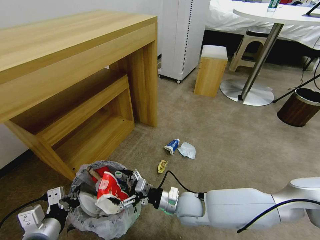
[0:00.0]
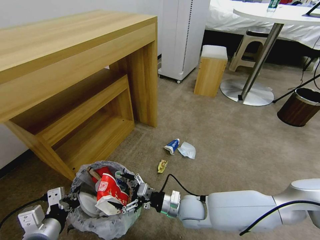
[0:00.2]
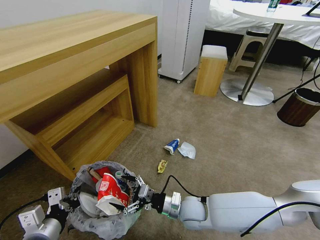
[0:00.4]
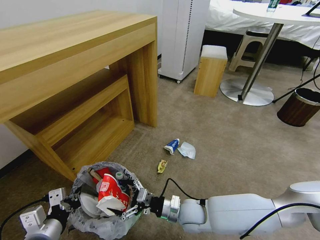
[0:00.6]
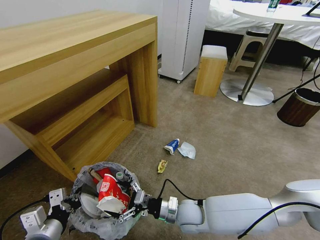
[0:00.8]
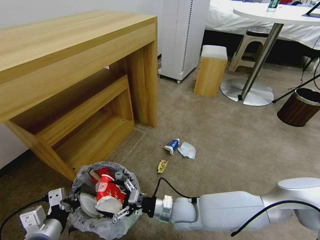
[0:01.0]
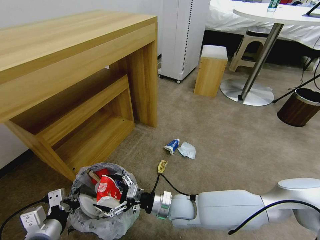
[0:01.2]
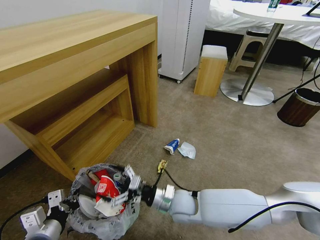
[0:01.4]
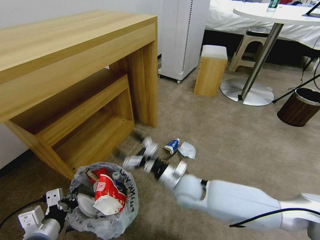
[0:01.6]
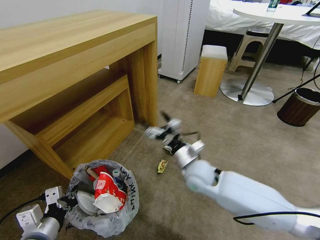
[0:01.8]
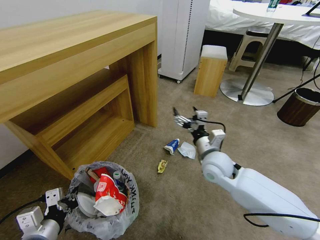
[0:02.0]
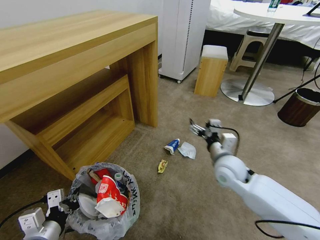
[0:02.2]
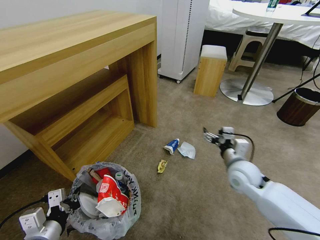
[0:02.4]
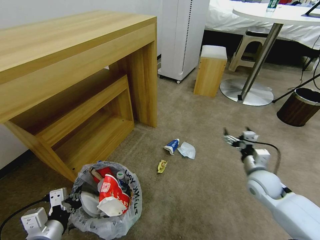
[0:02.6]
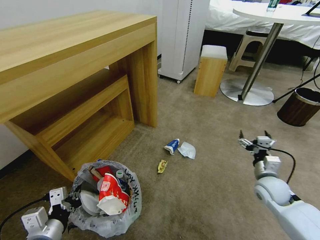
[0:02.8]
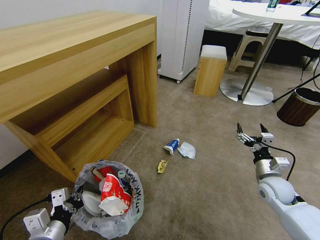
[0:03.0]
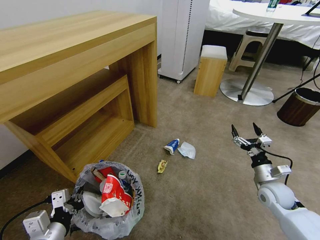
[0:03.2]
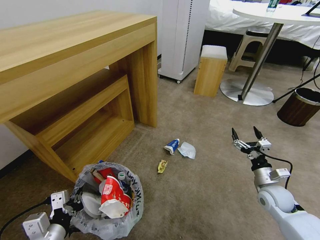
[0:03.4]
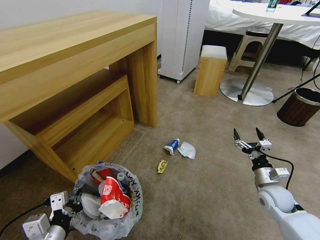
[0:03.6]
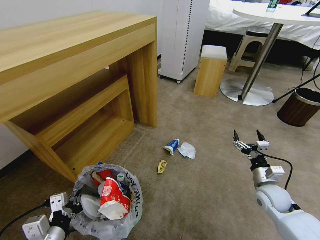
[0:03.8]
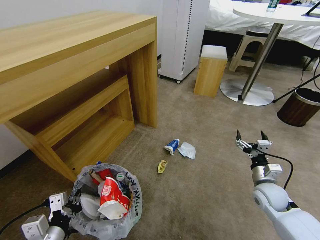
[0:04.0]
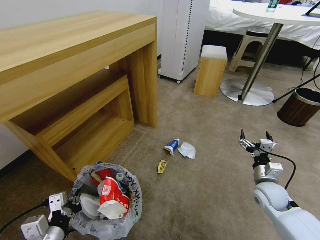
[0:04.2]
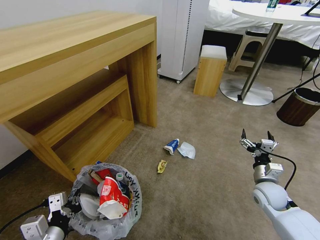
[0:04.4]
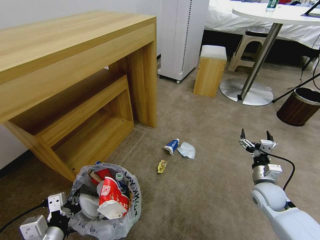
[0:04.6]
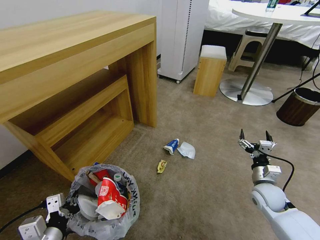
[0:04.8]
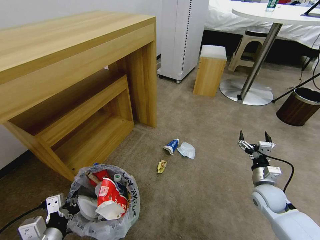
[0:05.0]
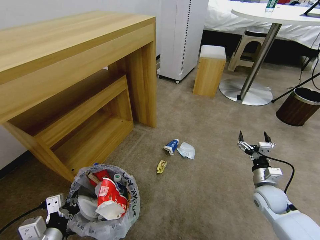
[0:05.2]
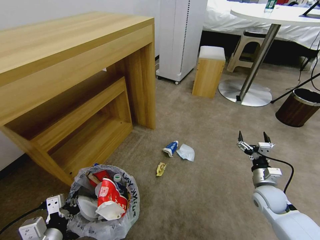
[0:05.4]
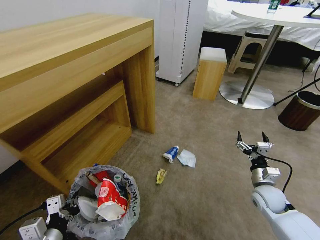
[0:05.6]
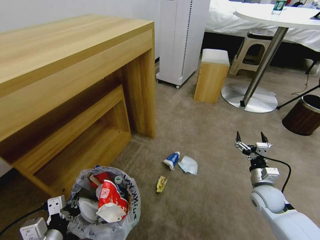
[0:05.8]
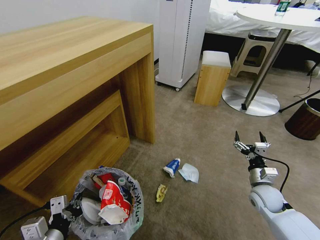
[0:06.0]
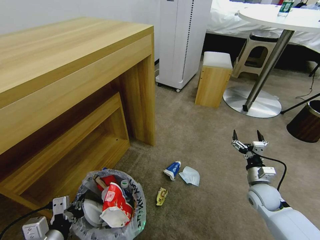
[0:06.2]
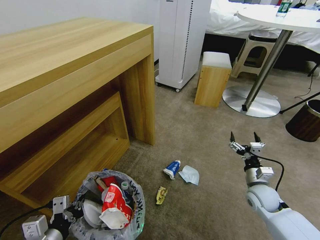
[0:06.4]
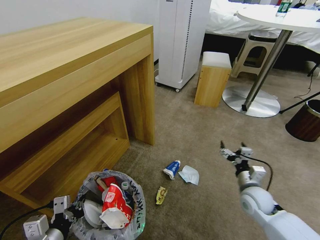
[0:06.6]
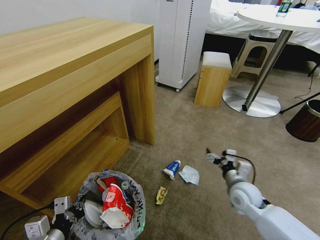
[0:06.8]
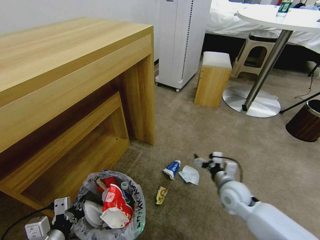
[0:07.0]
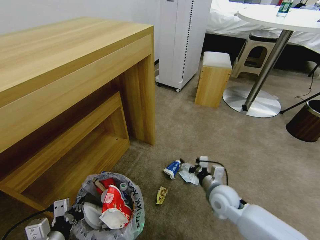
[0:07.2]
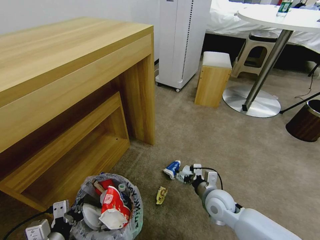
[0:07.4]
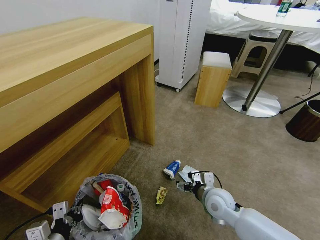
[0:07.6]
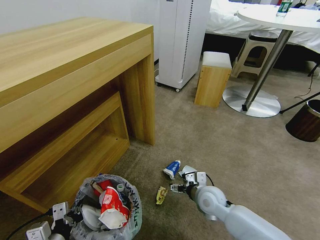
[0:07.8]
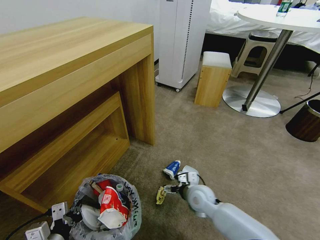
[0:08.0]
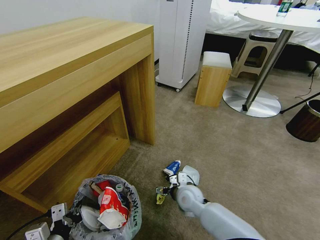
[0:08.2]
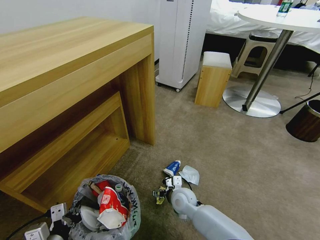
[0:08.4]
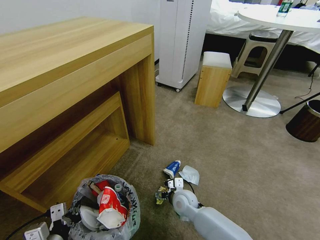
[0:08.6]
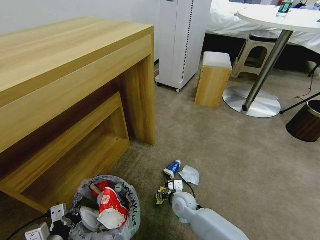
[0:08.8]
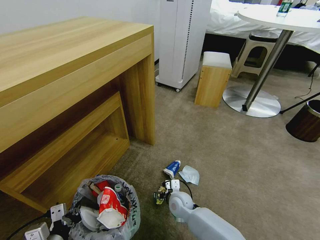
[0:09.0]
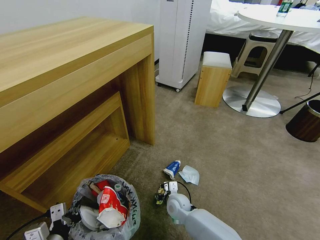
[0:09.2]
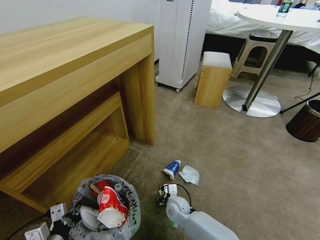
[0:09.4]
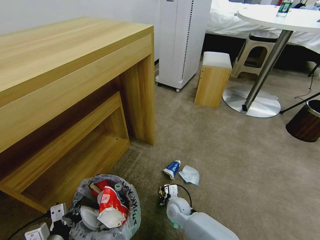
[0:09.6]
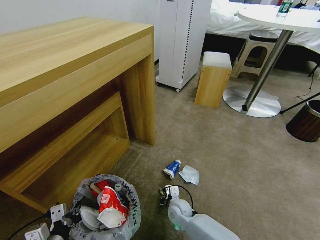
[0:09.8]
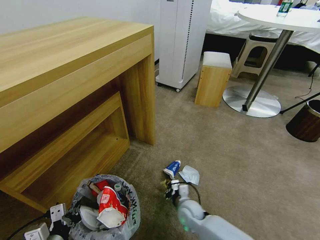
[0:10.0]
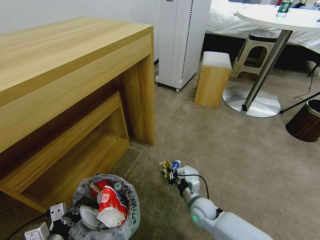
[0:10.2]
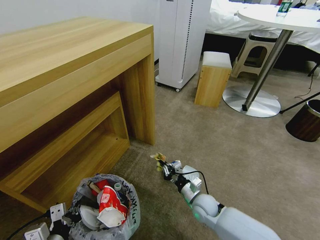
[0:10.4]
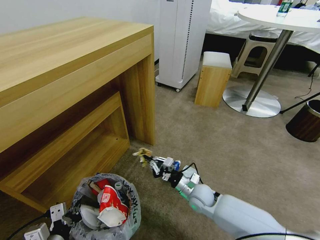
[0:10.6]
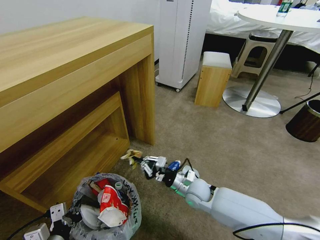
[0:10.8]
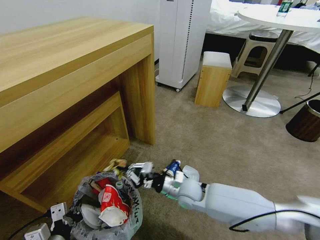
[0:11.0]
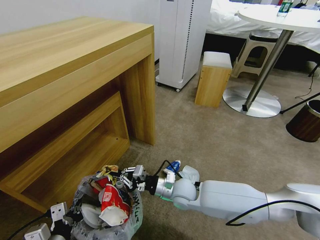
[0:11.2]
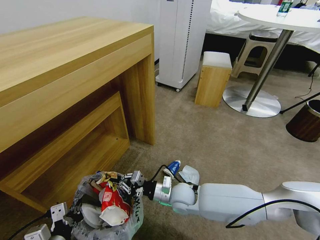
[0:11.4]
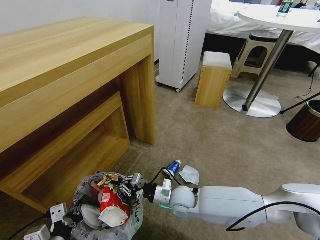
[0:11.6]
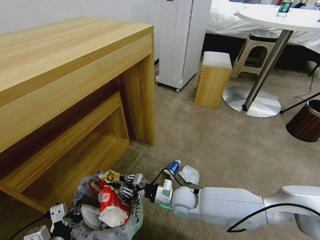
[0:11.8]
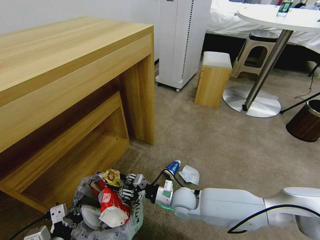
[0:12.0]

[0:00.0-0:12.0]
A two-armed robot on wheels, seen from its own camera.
Task of the whole recording: Pick up the trash bin and place the garbage on the floor into it.
0:00.0 to 0:01.6: The right gripper ends up roughly 5 cm from where it was.
0:01.6 to 0:03.0: The right gripper moves to the right, approximately 30 cm.
0:03.0 to 0:04.4: The grippers move only a little.
0:06.0 to 0:07.6: The right gripper travels to the left by some 20 cm.
0:07.6 to 0:09.0: The right gripper shifts roughly 15 cm to the left and downward.
0:09.0 to 0:10.4: The right gripper goes roughly 10 cm to the right, and closes.
0:10.4 to 0:12.0: The right gripper heads to the left, covering roughly 10 cm, and opens.

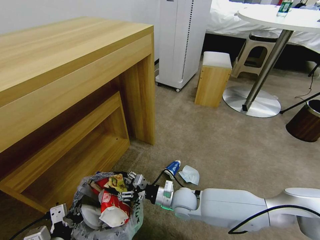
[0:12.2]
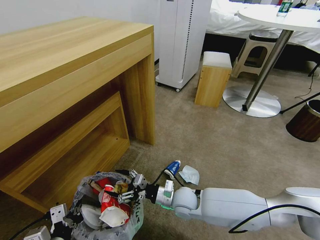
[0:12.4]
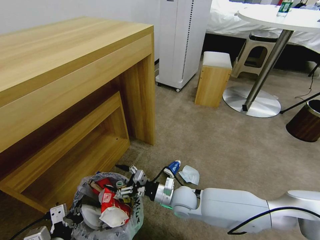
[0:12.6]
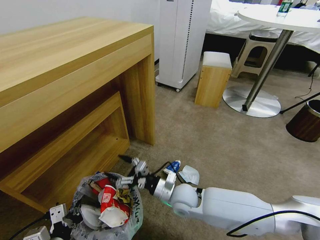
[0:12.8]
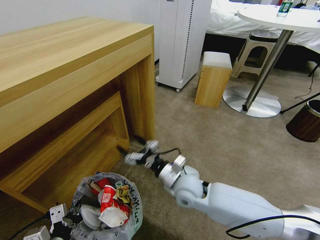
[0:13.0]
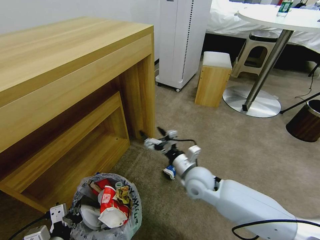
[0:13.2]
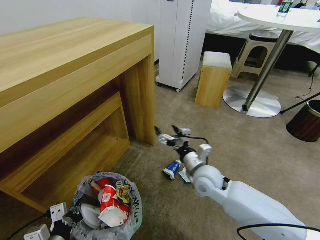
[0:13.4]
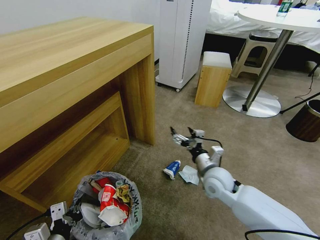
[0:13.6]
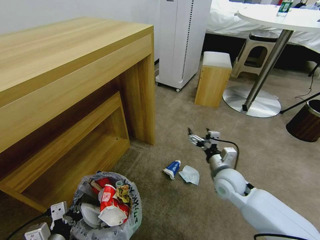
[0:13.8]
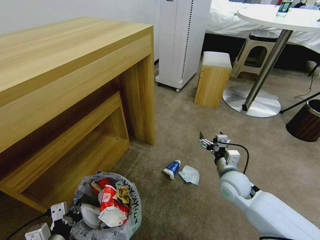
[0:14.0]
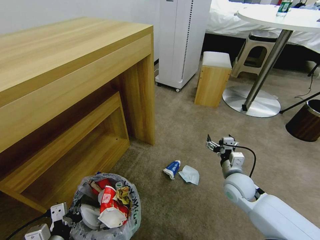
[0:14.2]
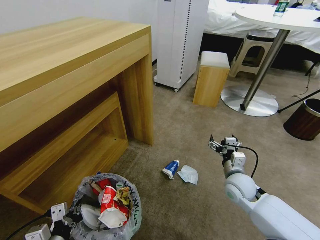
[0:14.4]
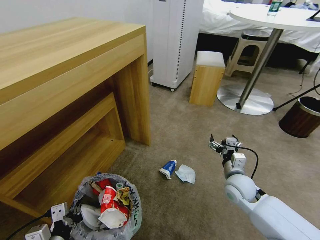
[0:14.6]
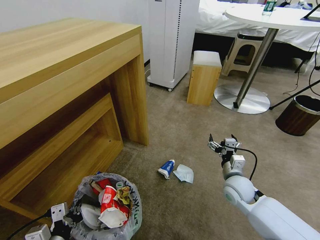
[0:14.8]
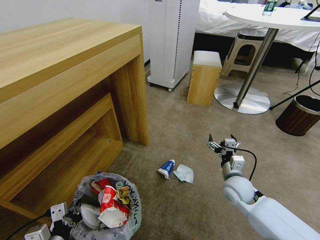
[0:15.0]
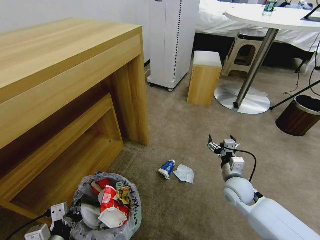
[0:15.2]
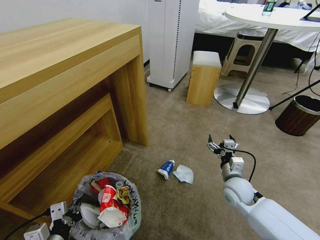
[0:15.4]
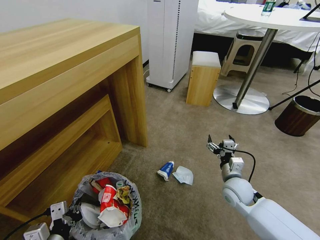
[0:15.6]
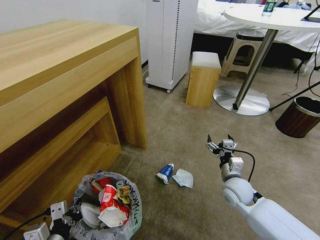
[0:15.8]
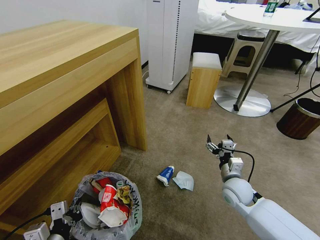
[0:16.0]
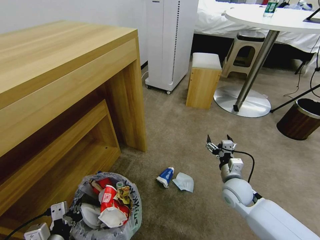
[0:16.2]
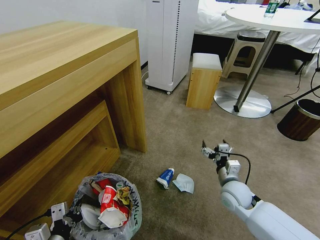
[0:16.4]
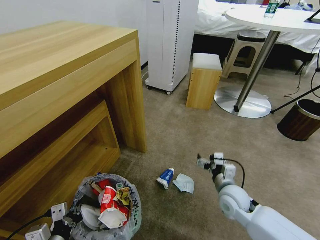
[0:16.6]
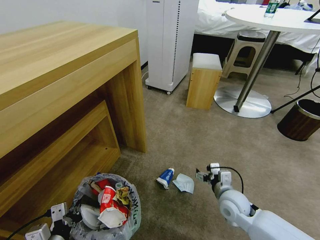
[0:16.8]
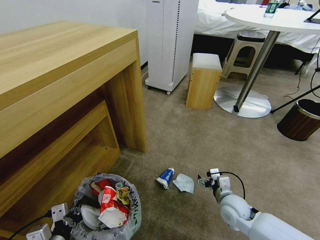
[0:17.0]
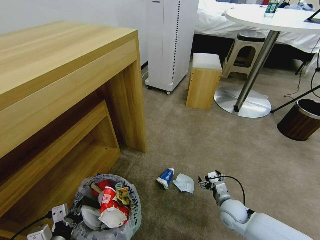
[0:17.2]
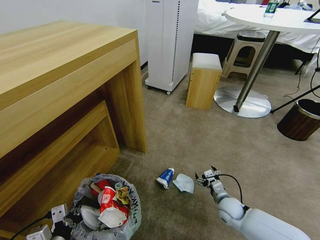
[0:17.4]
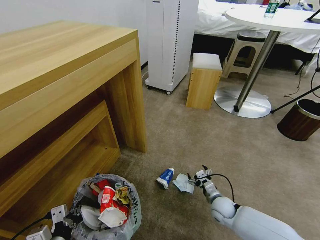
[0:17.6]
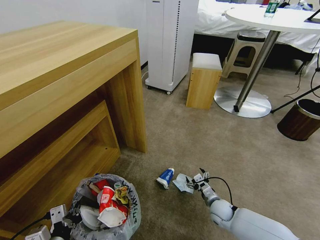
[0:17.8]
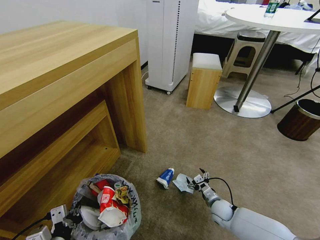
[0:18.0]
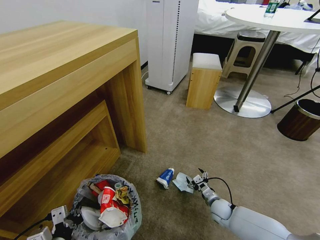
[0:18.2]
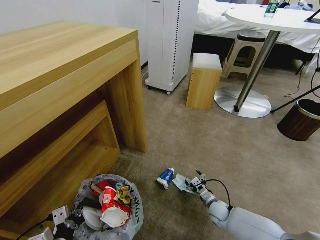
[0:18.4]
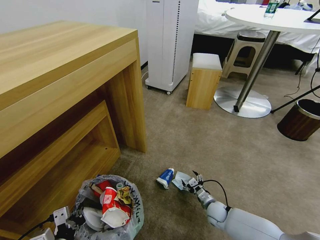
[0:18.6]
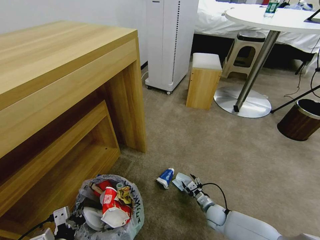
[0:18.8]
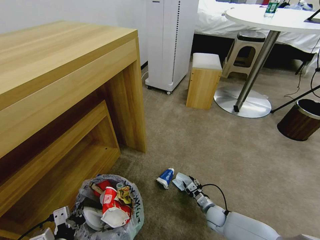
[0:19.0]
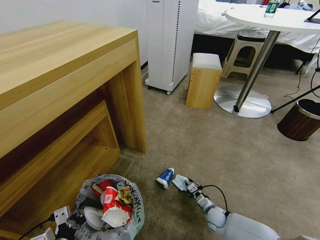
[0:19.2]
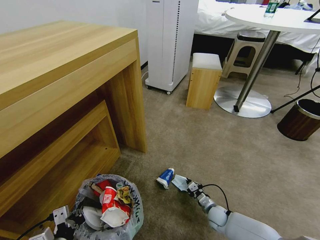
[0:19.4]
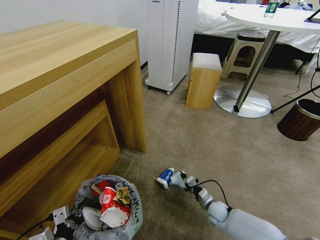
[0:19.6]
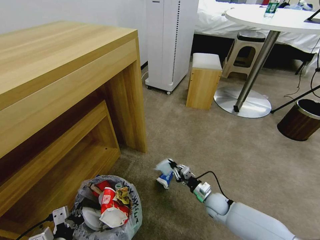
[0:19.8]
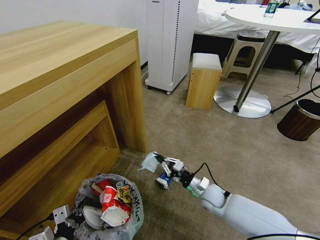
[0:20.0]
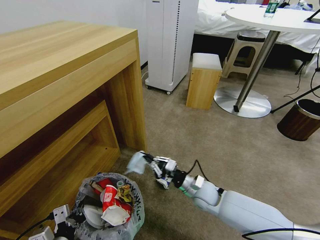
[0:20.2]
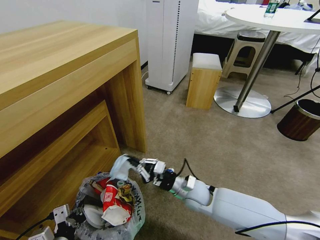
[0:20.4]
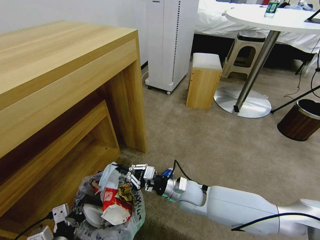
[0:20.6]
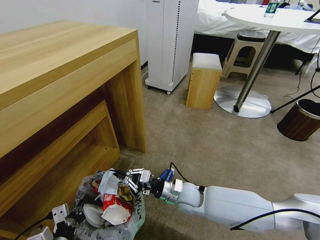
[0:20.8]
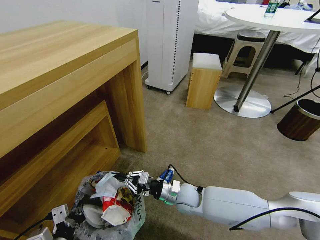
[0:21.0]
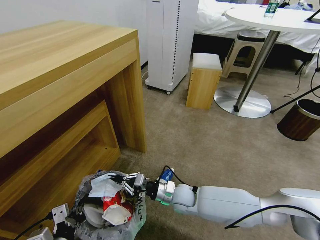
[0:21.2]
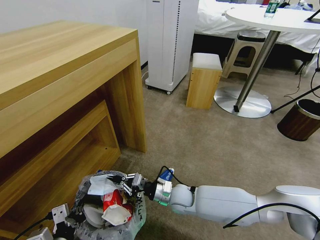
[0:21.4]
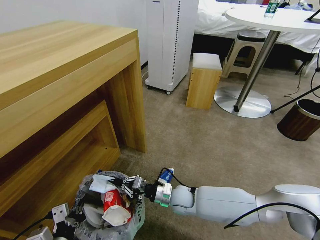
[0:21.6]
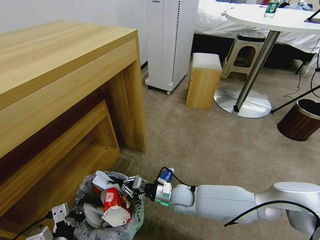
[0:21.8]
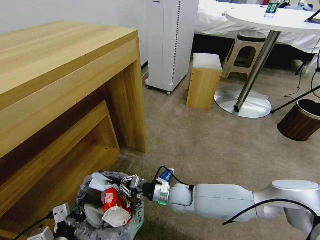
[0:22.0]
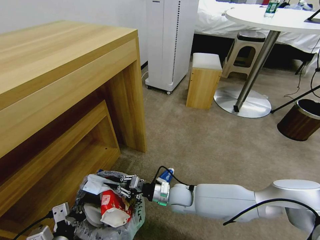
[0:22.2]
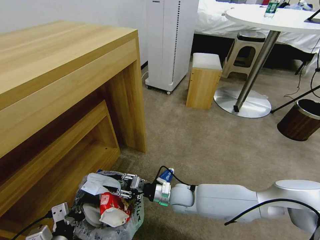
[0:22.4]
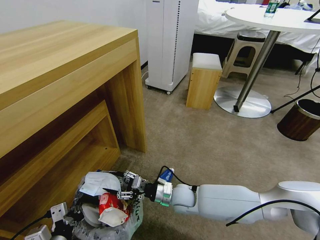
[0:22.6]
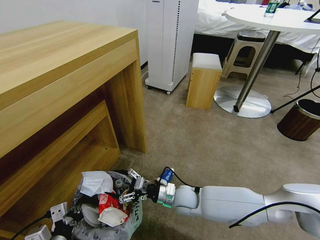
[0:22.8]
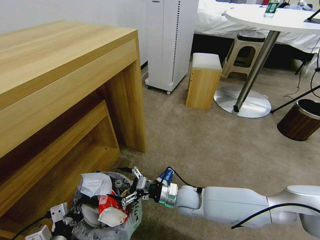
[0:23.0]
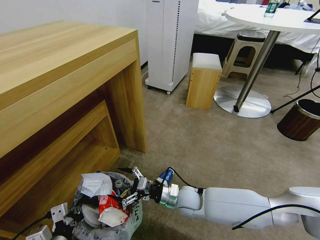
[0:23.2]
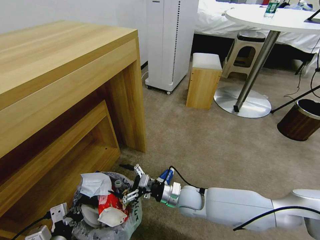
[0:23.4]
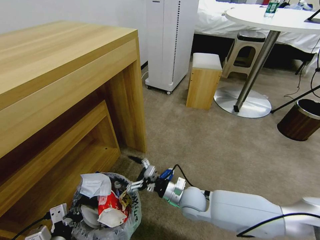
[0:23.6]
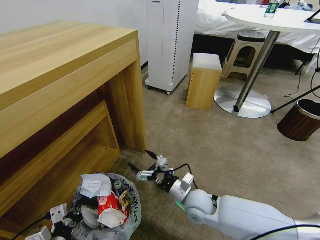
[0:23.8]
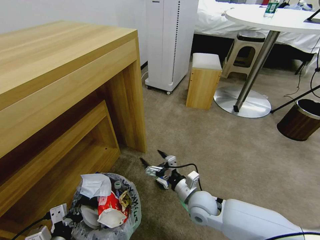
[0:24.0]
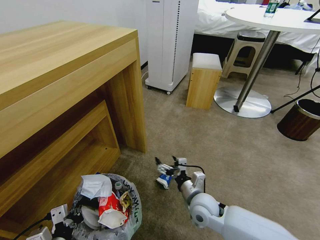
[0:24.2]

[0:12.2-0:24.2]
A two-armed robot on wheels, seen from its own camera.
Task of the whole recording: Pick up the trash bin and place the garbage on the floor into it.
0:12.2 to 0:13.8: The right gripper travels to the right and upward by roughly 15 cm.
0:13.8 to 0:15.2: The right gripper changes place by roughly 5 cm.
0:15.2 to 0:16.6: The grippers move only a little.
0:16.6 to 0:18.2: The right gripper travels downward by approximately 20 cm.
0:18.2 to 0:19.8: The right gripper goes roughly 5 cm upward, and closes its fingers.
0:19.8 to 0:21.2: The right gripper travels to the left and upward by about 15 cm.
0:21.2 to 0:22.6: The right gripper opens.
0:22.6 to 0:24.2: The right gripper is displaced to the right by approximately 5 cm, and opens its fingers.
